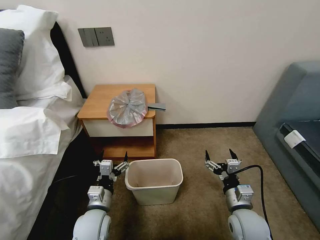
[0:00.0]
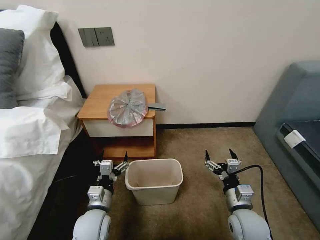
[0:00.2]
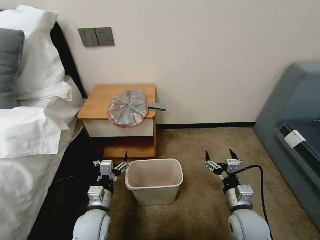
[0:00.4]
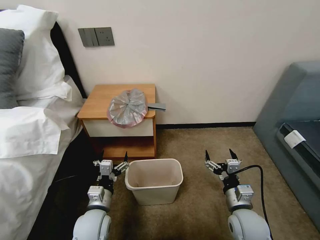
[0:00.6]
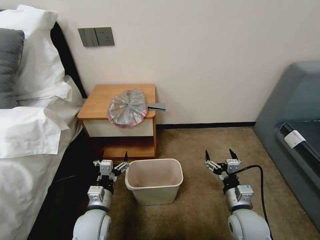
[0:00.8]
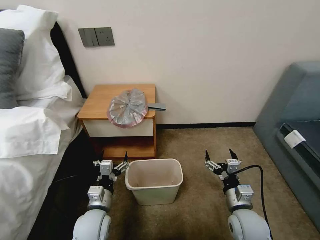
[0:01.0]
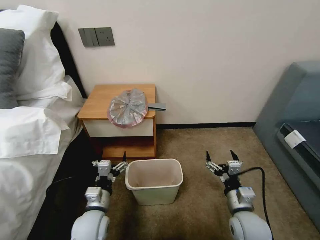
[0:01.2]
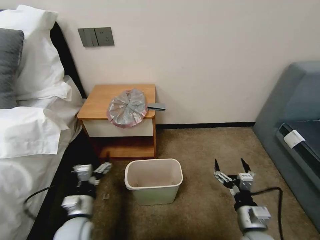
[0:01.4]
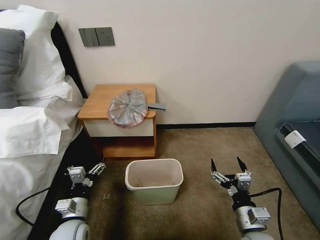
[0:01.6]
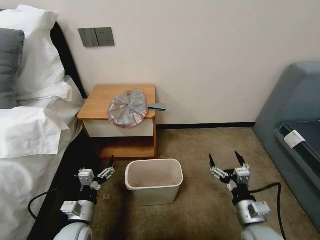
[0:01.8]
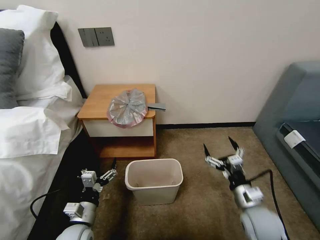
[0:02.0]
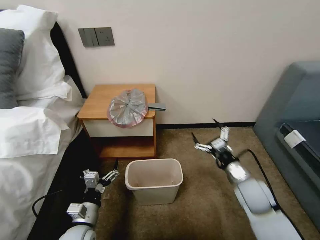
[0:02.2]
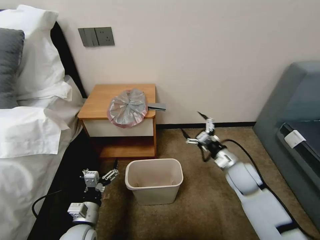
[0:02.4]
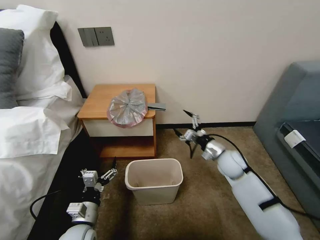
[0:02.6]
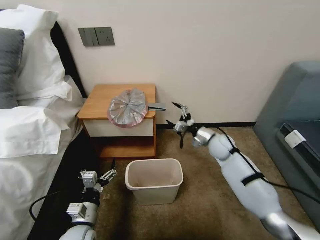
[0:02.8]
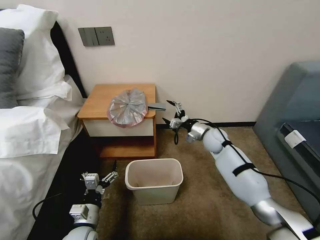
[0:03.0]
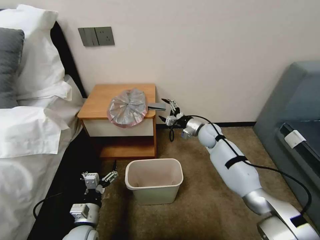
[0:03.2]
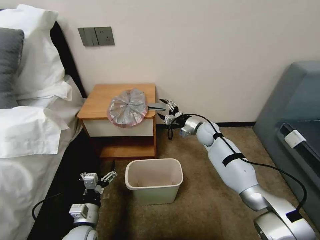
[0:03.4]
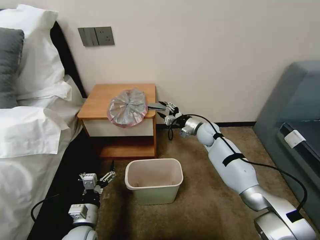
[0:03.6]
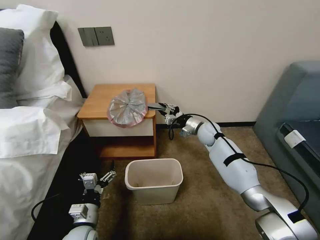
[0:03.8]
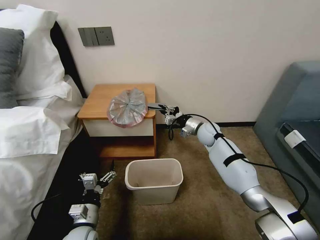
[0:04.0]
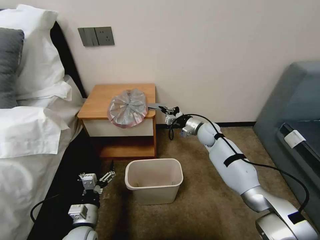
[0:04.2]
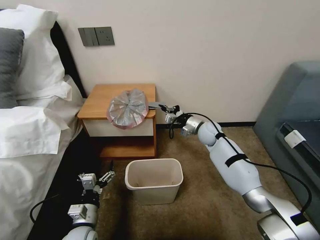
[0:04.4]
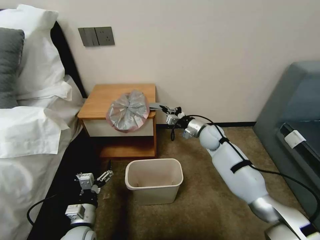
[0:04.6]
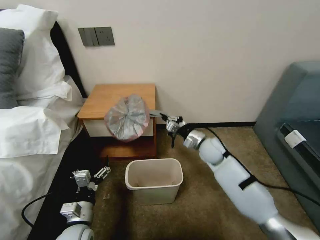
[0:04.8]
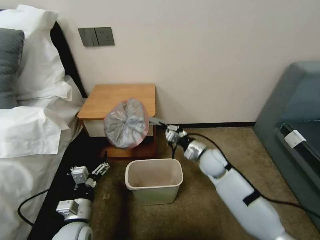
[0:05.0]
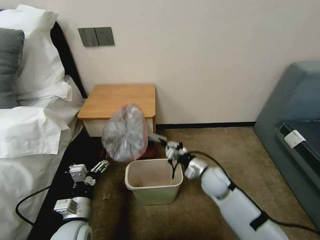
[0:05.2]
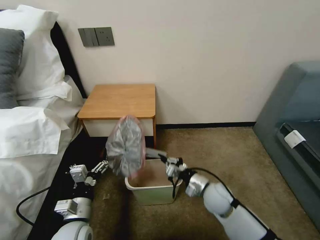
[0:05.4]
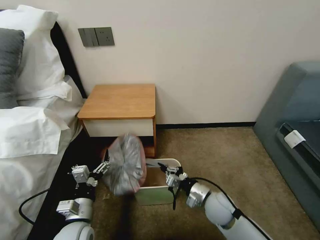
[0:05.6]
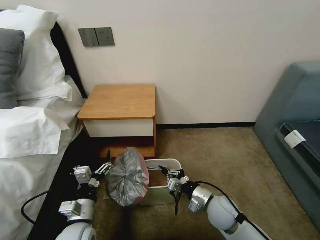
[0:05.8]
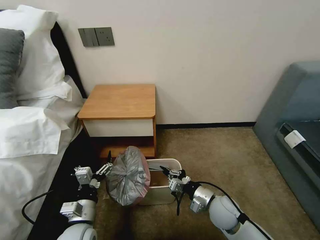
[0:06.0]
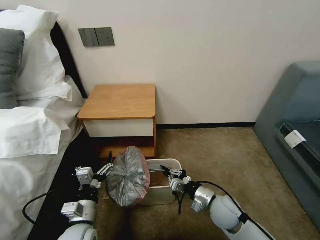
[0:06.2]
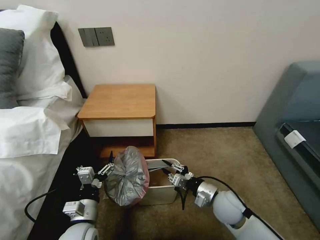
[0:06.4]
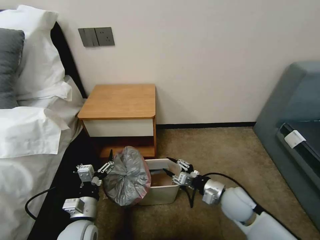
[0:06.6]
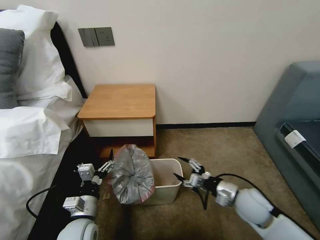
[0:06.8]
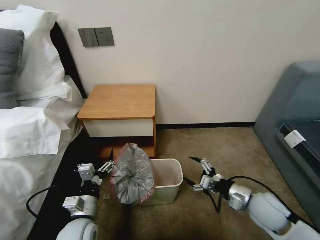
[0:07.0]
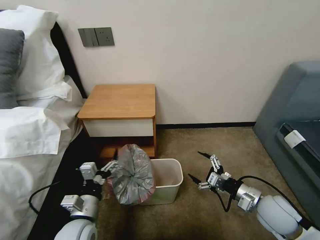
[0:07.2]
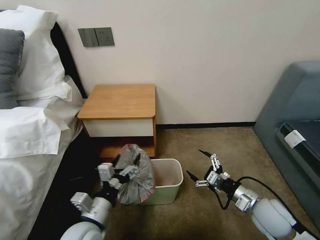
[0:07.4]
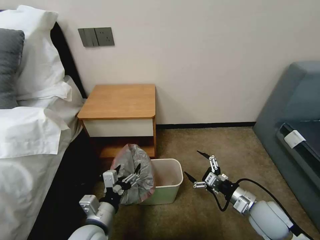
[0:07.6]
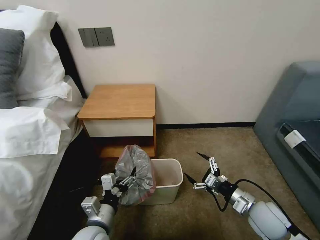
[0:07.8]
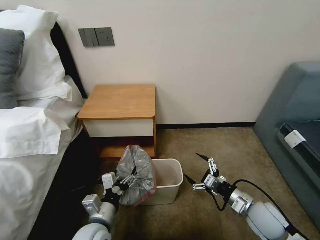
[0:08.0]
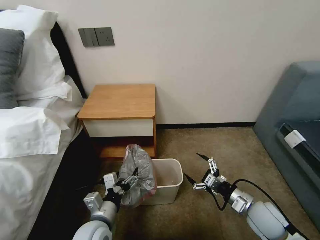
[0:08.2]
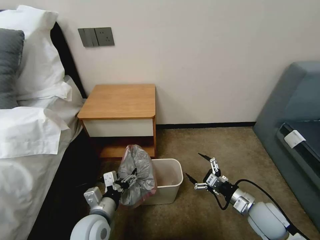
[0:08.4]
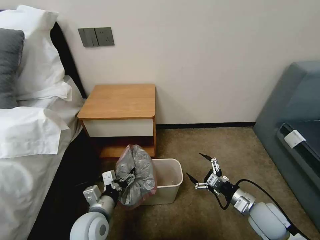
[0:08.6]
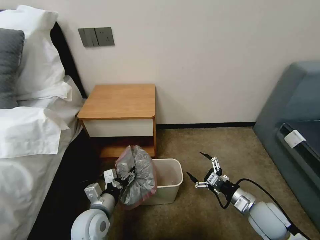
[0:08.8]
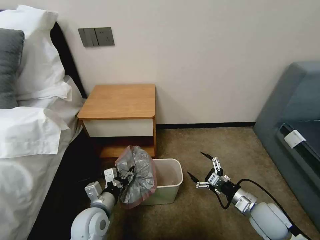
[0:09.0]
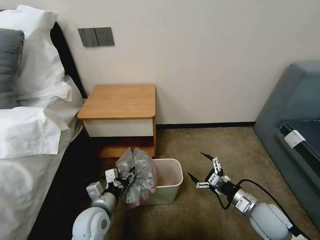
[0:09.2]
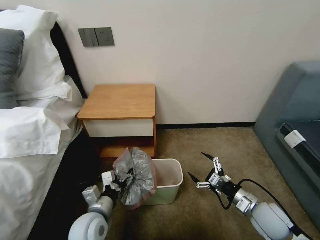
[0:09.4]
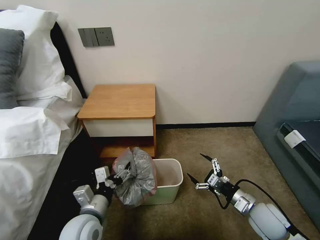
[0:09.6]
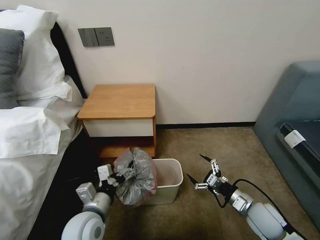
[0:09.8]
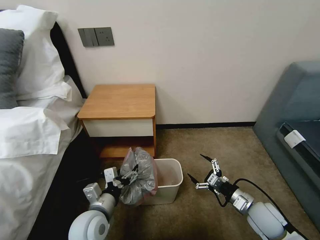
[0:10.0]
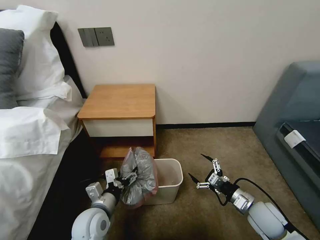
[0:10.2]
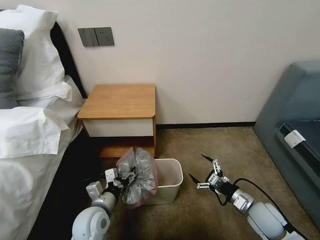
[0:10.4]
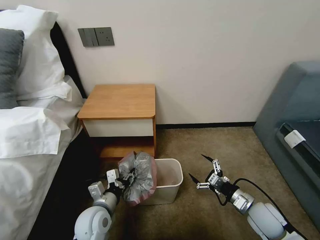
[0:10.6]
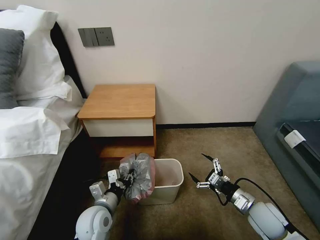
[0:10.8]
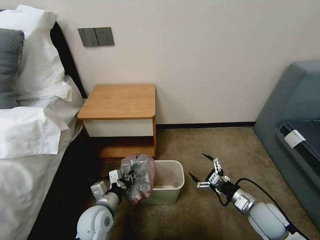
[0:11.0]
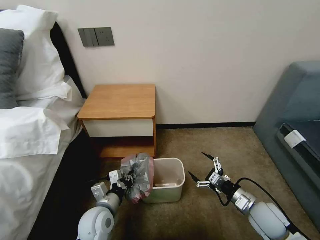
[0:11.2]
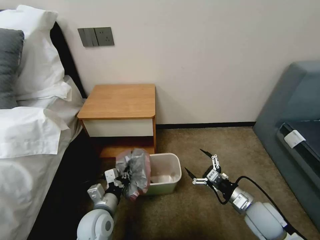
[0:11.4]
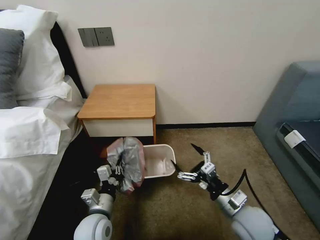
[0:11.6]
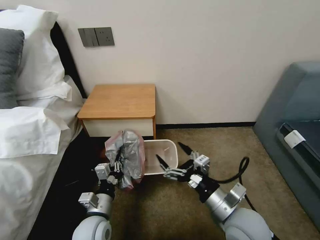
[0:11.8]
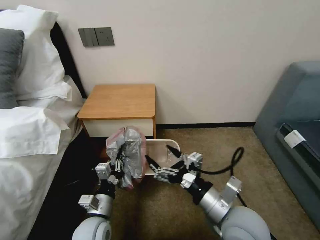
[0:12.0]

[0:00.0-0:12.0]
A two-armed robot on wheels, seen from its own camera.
Task of the whole recording: Pick up the garbage bag from the table and place it over the trash can.
0:01.6 to 0:03.0: The right gripper moves forward, some 35 cm.
0:03.0 to 0:04.4: The right gripper closes up.
0:04.4 to 0:06.0: The right gripper is displaced backward by about 25 cm.
0:06.0 to 0:07.6: The left gripper changes place by roughly 5 cm, while the right gripper goes roughly 10 cm to the right and upward, and opens its fingers.
0:07.6 to 0:09.0: The left gripper travels forward by some 5 cm, and closes its fingers.
0:09.0 to 0:10.4: The grippers stay close to where they were, moving slightly.
0:10.4 to 0:12.0: The right gripper moves upward and to the left, about 25 cm; the left gripper closes.

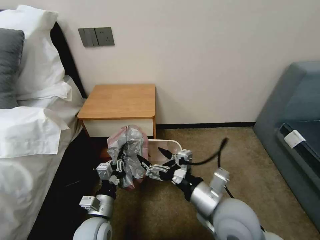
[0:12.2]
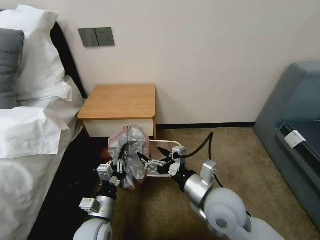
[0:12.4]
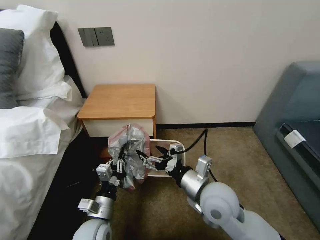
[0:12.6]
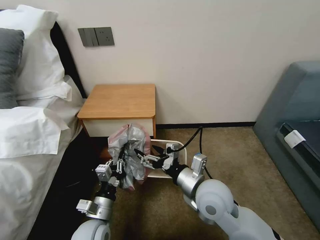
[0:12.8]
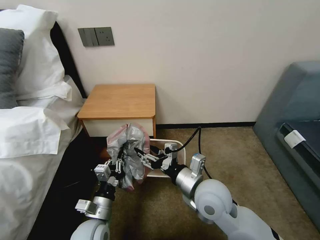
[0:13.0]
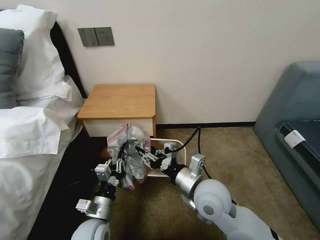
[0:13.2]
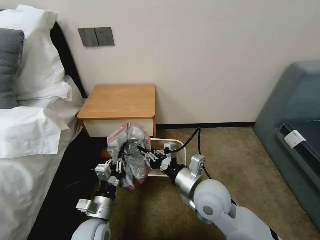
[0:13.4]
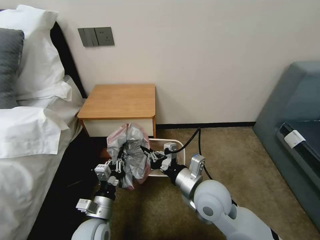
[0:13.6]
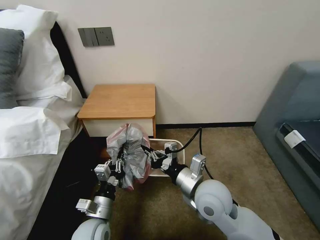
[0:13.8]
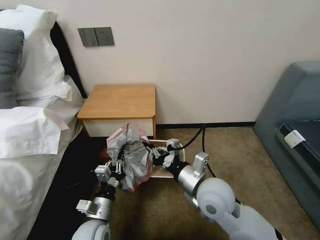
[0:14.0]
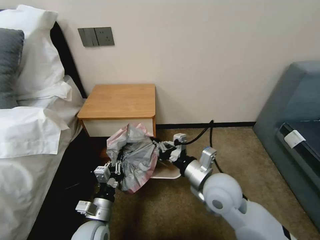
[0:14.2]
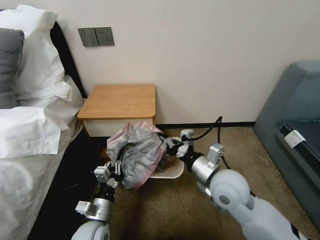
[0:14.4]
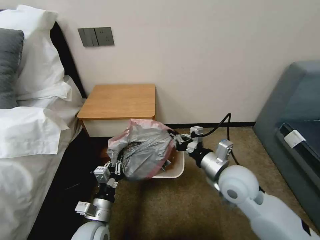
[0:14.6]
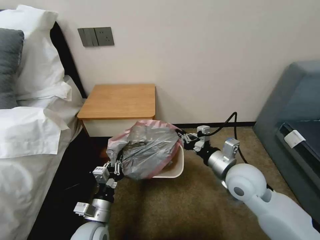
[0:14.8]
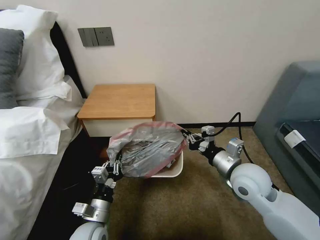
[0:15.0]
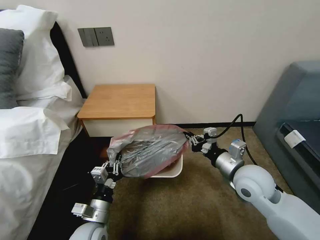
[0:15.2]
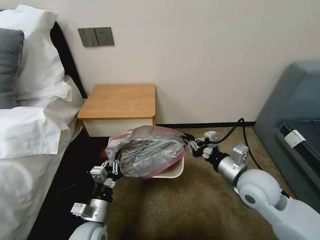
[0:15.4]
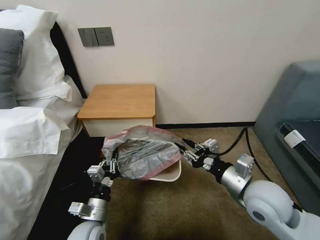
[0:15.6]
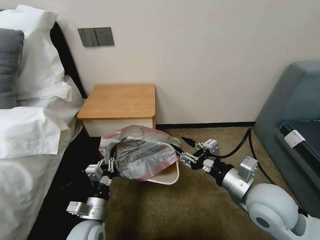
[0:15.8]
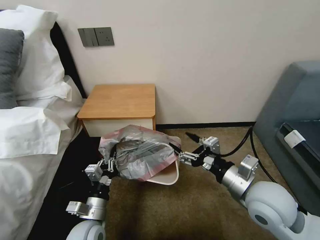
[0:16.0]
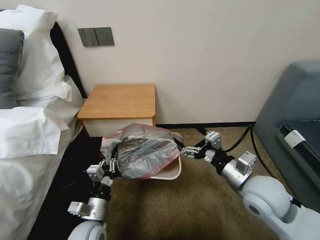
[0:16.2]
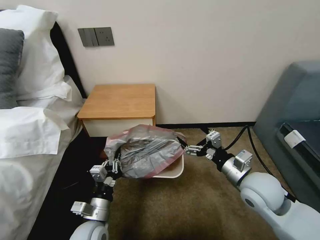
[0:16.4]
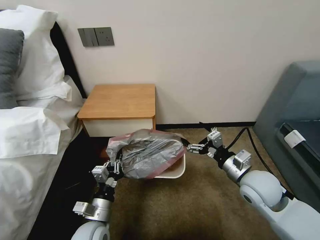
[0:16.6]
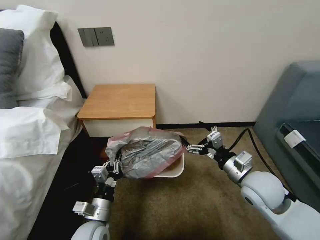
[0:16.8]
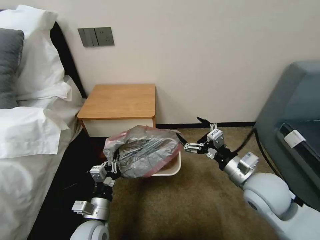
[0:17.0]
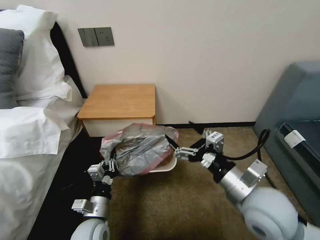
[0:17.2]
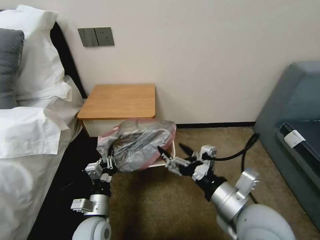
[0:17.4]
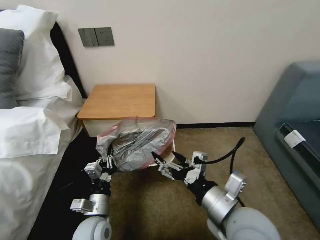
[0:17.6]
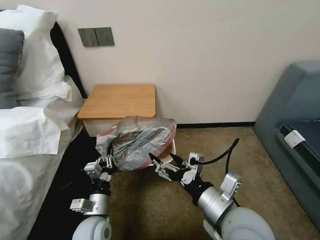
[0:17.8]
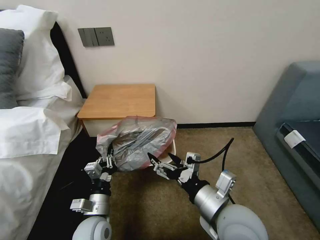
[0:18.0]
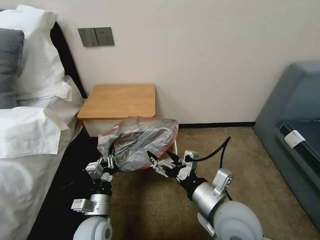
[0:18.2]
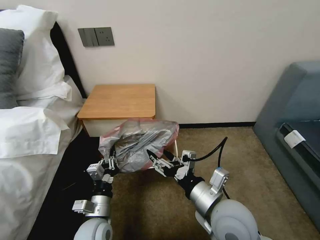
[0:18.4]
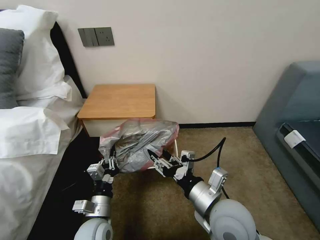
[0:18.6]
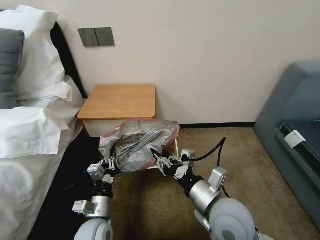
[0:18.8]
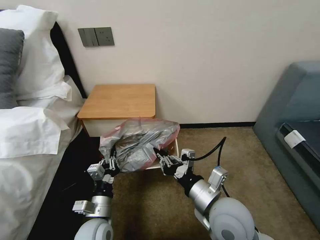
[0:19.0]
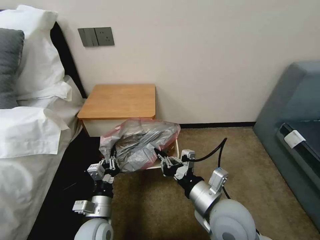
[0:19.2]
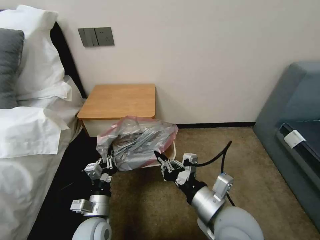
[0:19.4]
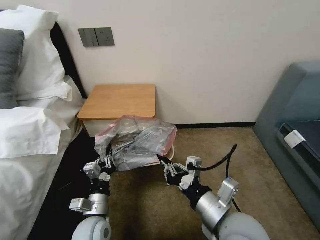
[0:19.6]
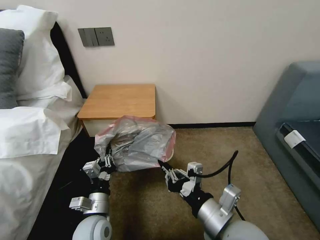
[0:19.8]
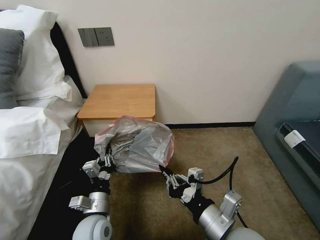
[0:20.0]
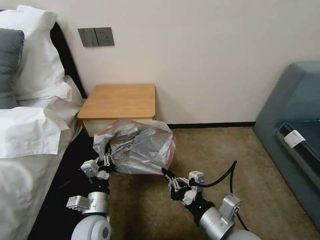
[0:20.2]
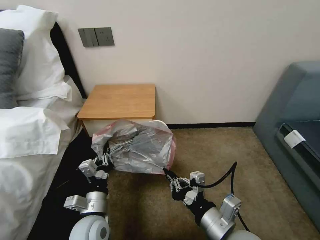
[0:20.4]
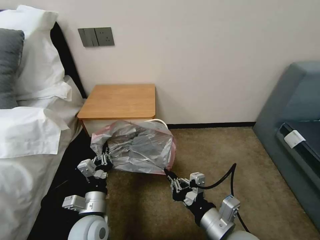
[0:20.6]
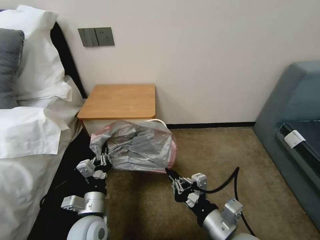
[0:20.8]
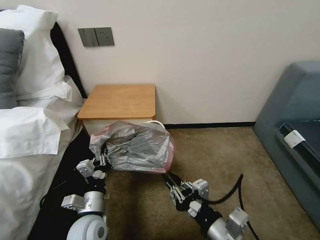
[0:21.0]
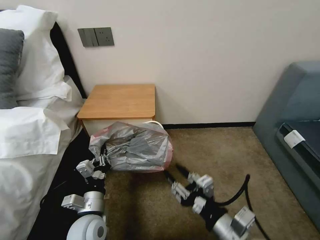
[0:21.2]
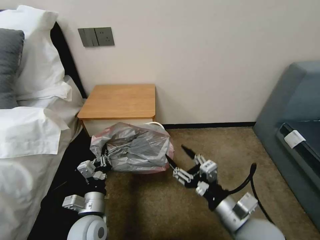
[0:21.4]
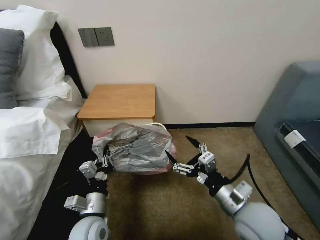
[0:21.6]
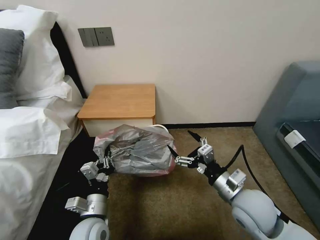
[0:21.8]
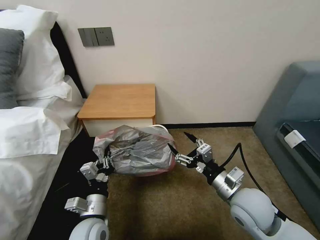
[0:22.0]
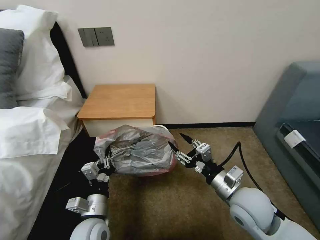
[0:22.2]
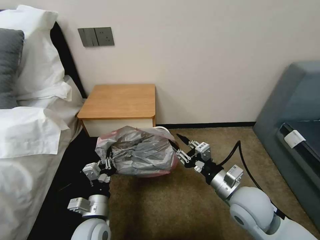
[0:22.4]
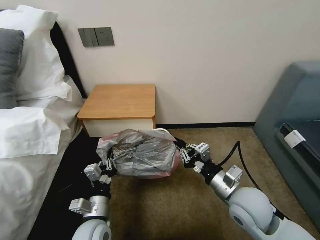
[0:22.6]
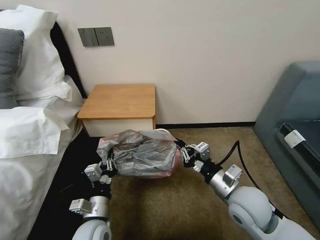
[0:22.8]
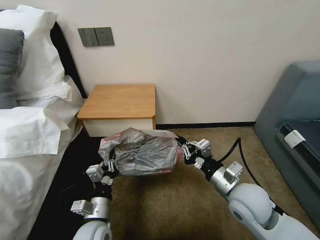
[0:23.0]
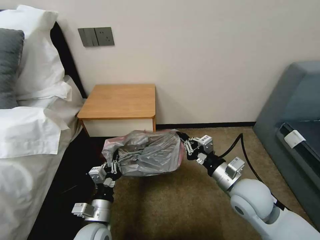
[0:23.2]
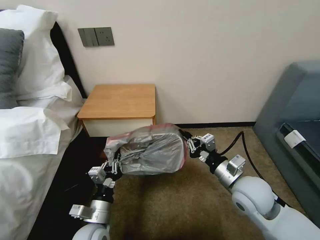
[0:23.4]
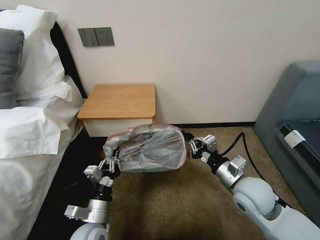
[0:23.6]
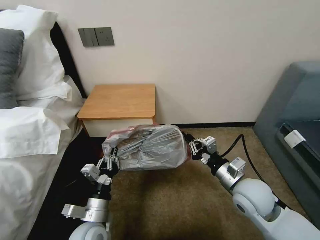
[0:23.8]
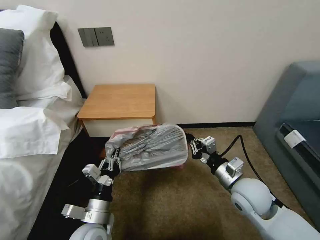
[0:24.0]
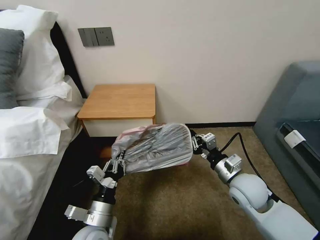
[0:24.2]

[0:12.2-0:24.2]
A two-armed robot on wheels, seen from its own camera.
Task of the whole recording: Pick up the garbage bag from the table and place it over the trash can.
0:12.2 to 0:13.8: The right gripper moves forward, roughly 5 cm, and closes.
0:13.8 to 0:15.2: The right gripper is displaced to the right by about 10 cm.
0:15.2 to 0:16.6: The right gripper opens up.
0:16.6 to 0:18.2: The right gripper heads to the left and backward, covering some 15 cm.
0:18.2 to 0:19.8: The right gripper closes.
0:19.8 to 0:21.2: The right gripper opens its fingers.
0:21.2 to 0:22.6: The right gripper goes about 10 cm forward, and closes up.
0:22.6 to 0:24.2: The right gripper travels forward by approximately 5 cm.
